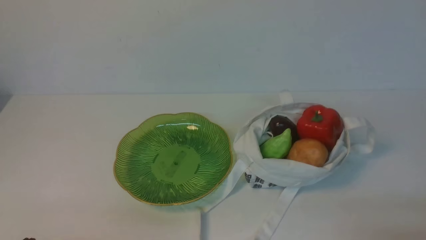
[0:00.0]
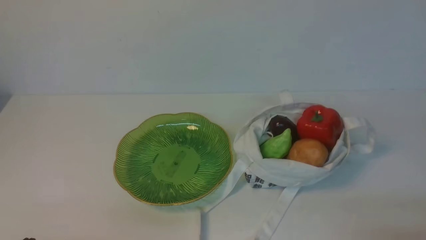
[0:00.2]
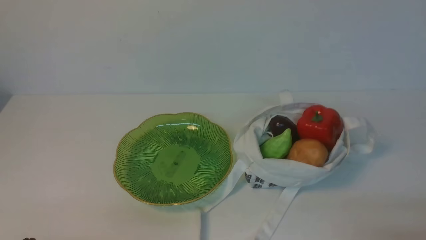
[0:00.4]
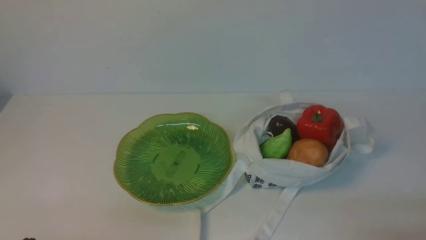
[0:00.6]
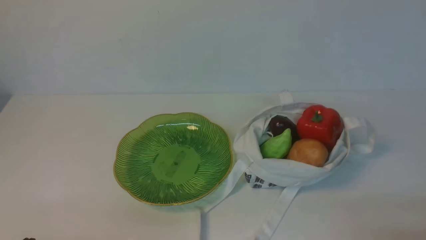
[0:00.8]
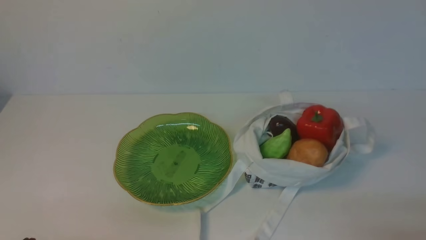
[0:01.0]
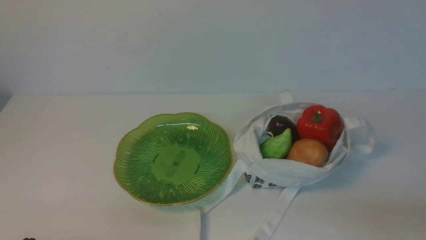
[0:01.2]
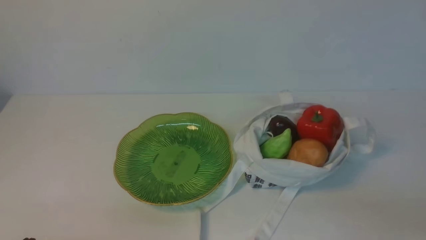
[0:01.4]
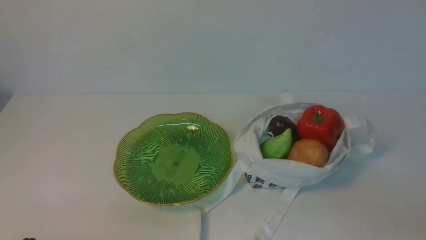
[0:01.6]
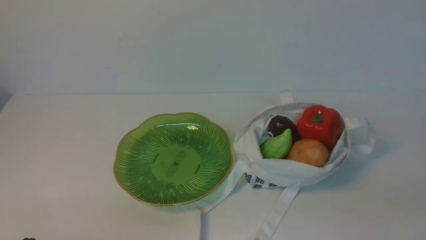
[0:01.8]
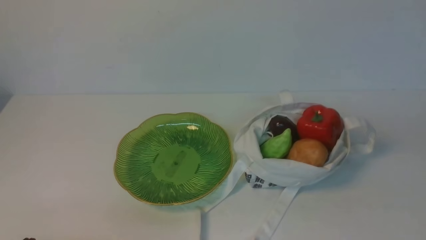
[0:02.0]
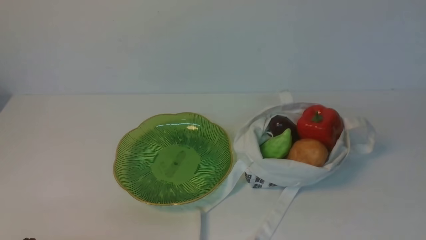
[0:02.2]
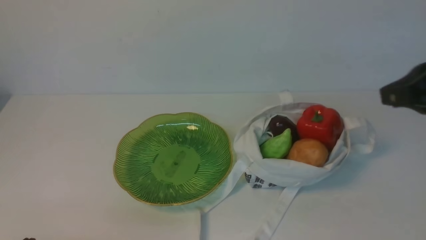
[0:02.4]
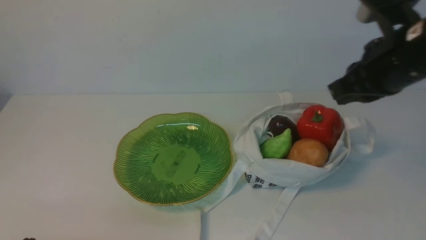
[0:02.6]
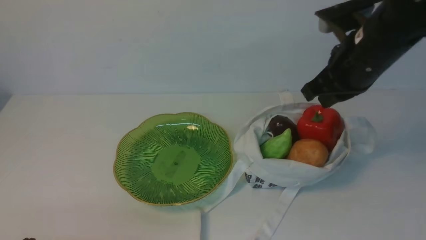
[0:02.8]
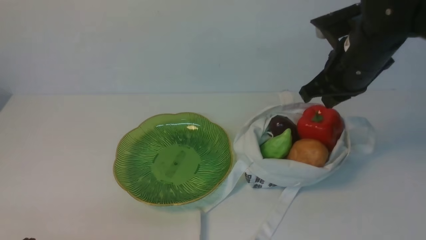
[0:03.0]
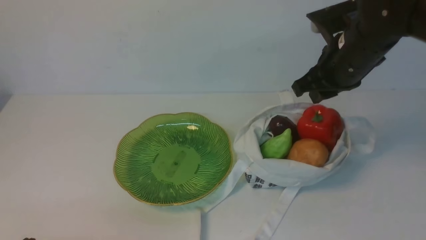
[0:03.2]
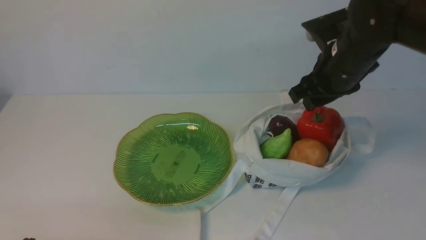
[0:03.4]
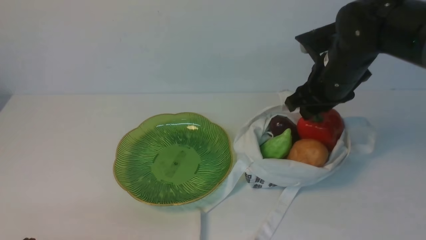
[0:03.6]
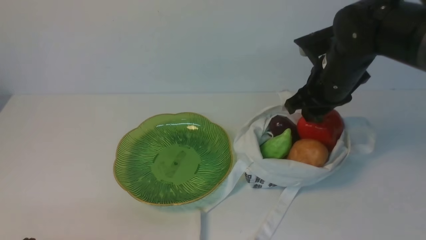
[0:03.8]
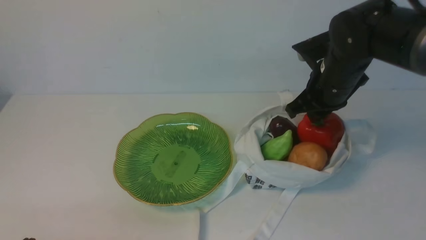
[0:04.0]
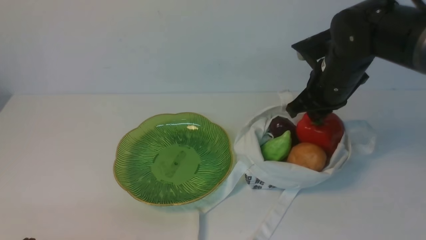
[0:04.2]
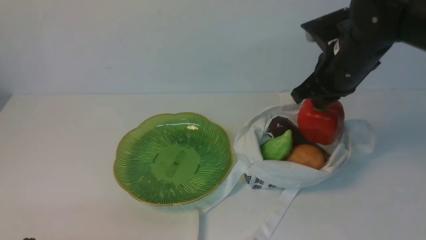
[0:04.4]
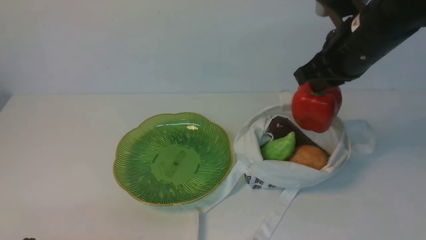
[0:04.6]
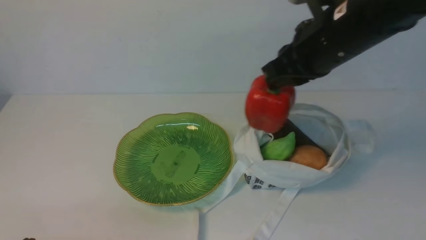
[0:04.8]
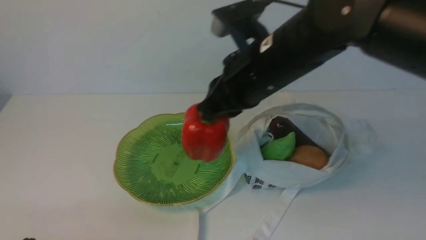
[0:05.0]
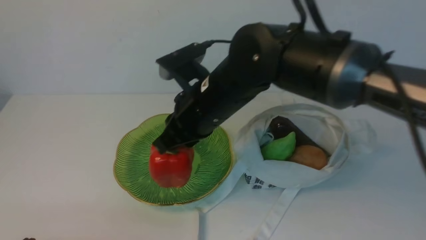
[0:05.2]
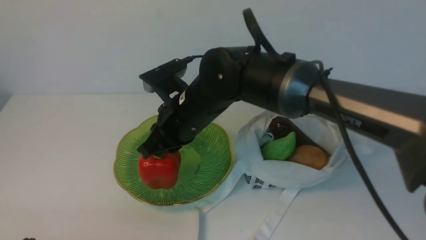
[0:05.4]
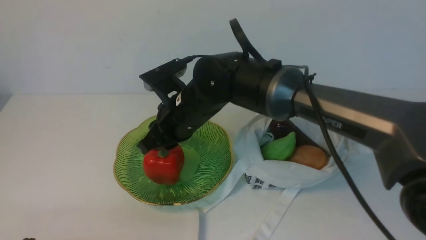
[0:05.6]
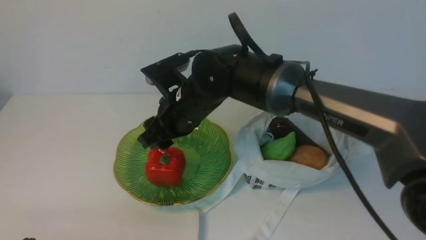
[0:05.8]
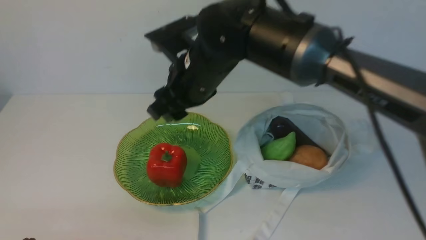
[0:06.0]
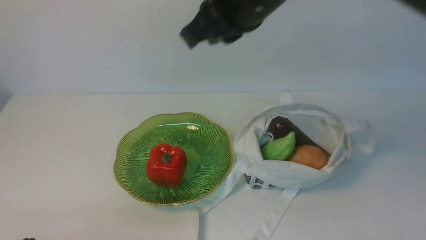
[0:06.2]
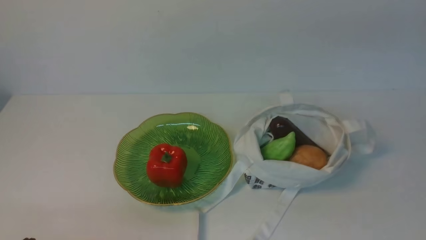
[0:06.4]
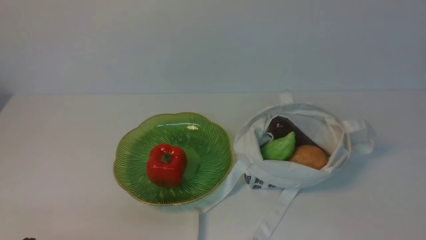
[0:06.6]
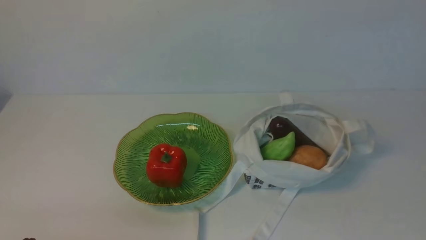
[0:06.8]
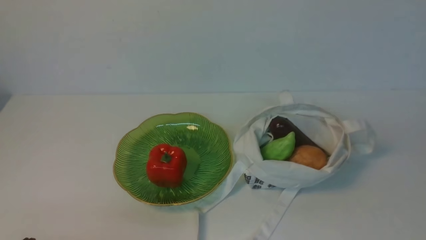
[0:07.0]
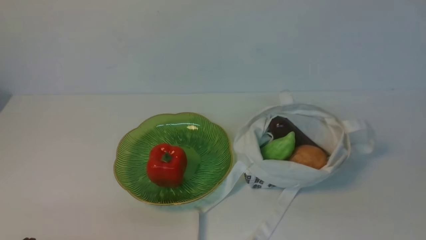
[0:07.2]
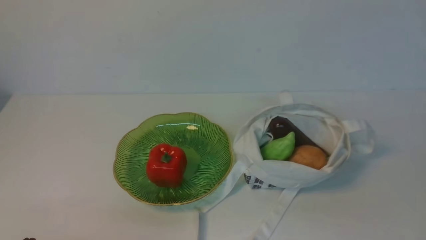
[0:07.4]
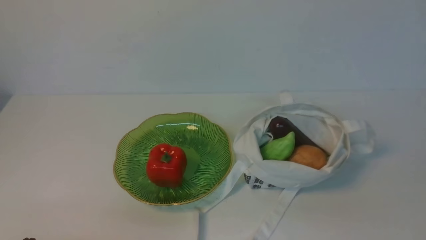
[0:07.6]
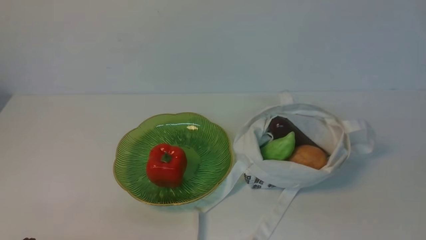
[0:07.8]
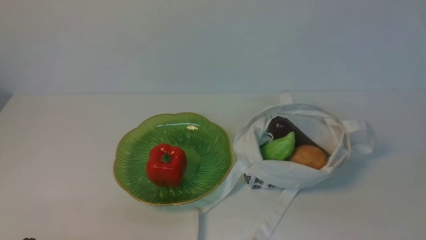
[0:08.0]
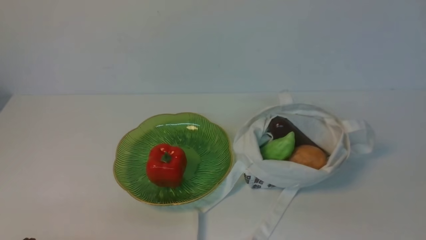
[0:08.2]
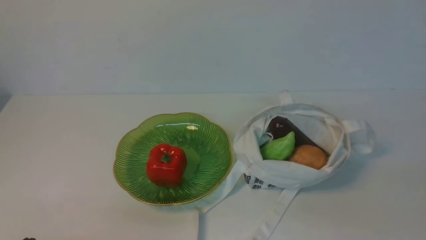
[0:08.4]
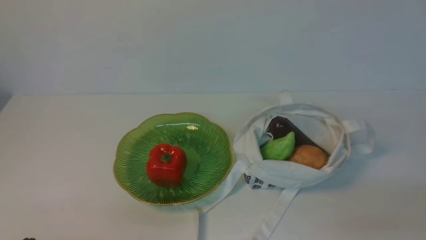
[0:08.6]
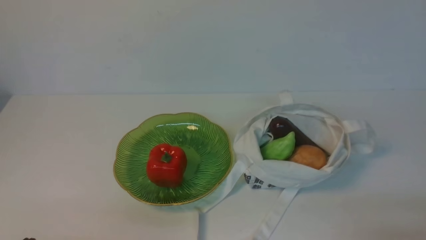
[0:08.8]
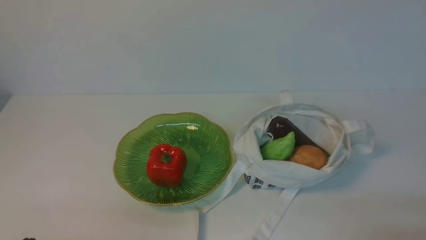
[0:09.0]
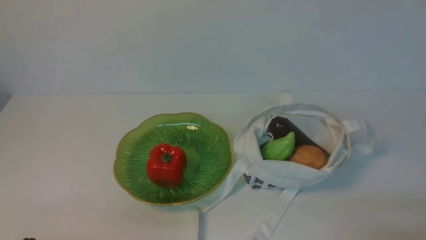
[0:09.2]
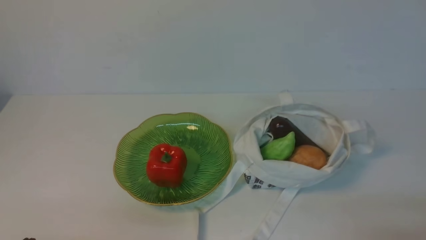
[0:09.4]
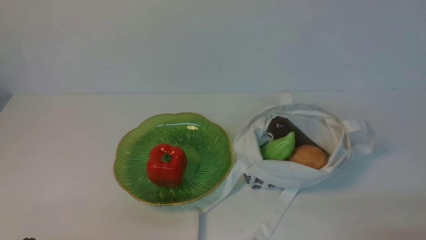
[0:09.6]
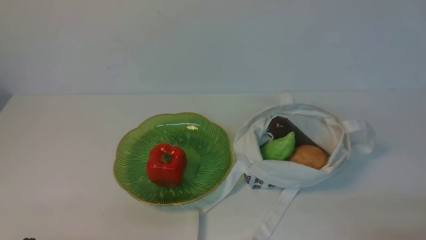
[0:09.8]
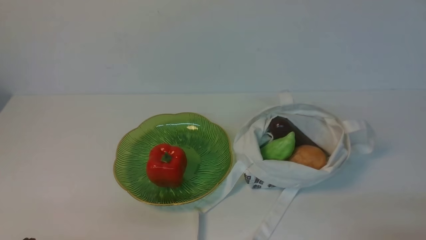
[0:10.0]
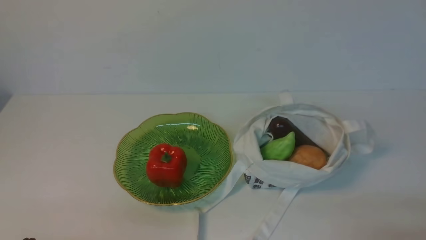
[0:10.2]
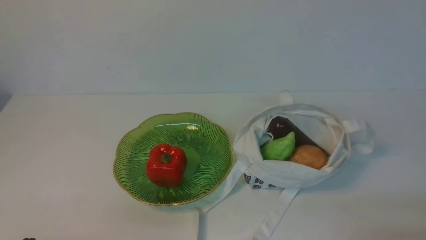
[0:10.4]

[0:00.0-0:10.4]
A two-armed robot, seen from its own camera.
Task of the whole recording: take vegetables from cloth bag on white table place on plate.
Step, 0:00.0 to 0:04.0: Grasp the bell pepper with right gripper.
Step, 0:04.2 to 0:05.8: Place the bell pepper on the plate with right gripper.
0:01.4 to 0:03.0: The right gripper travels forward, to the left and upward by approximately 35 cm.
0:03.0 to 0:04.4: The right gripper opens and closes again.
0:04.4 to 0:06.0: The right gripper moves to the left, some 20 cm, and opens.
0:06.0 to 0:07.4: The right gripper is displaced to the right and backward by some 40 cm, and closes its fingers.
0:09.0 to 0:10.4: Neither gripper changes place.
